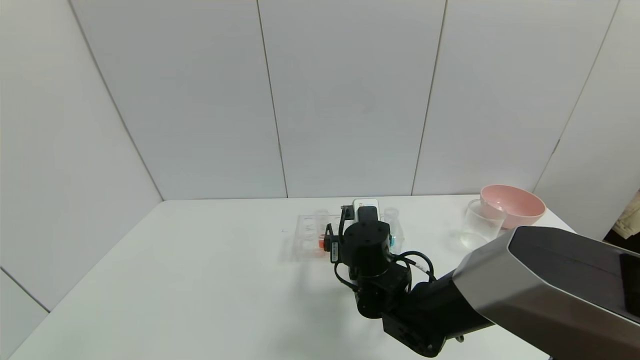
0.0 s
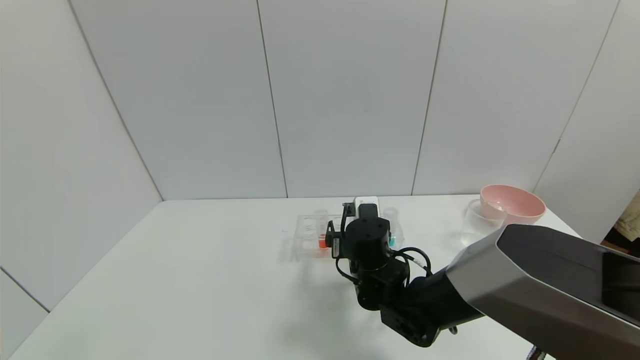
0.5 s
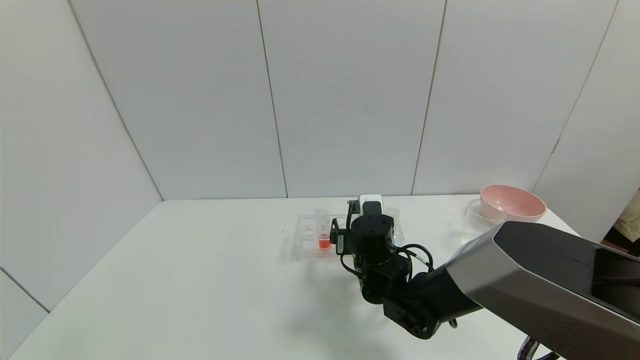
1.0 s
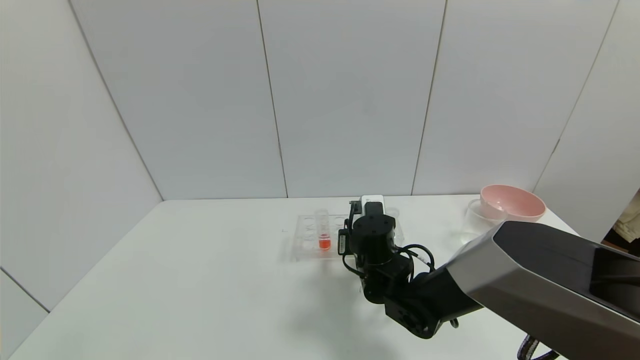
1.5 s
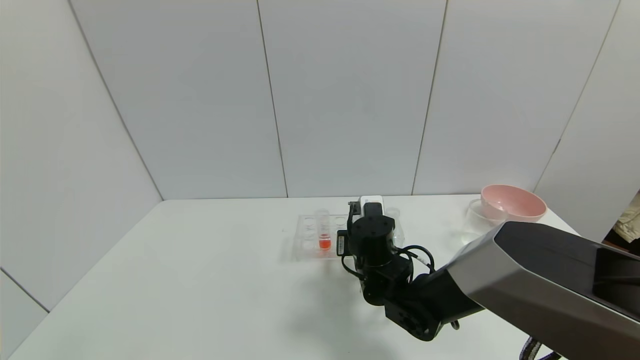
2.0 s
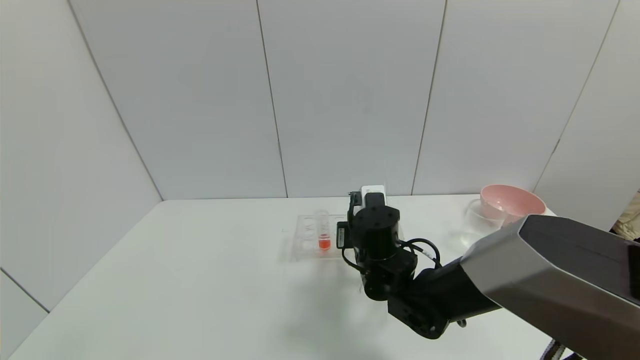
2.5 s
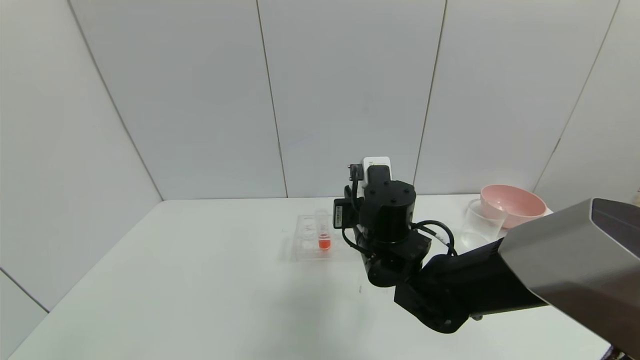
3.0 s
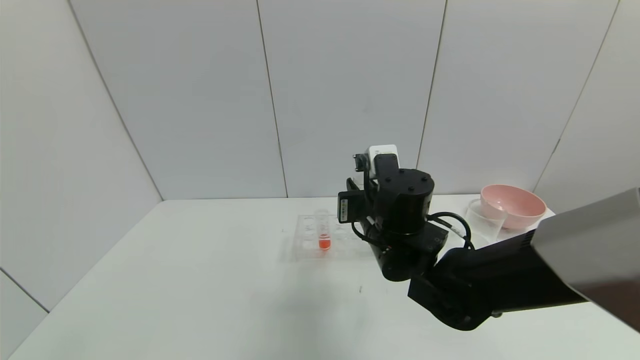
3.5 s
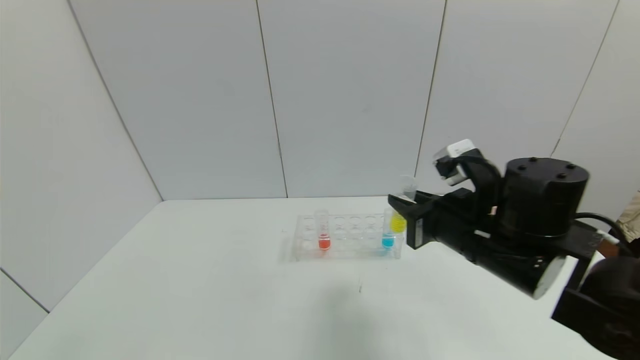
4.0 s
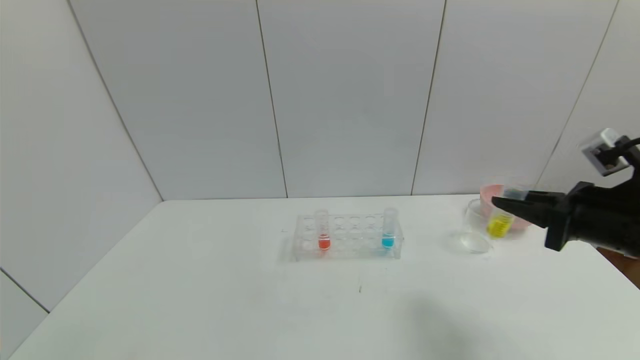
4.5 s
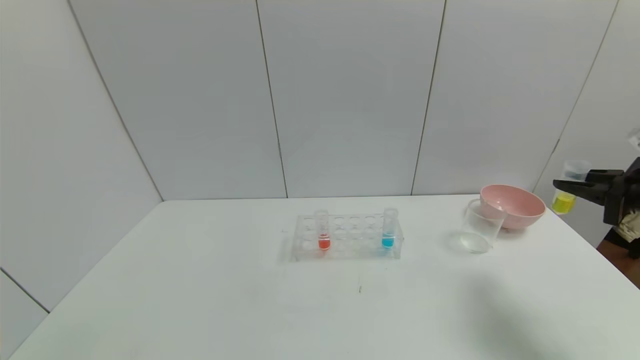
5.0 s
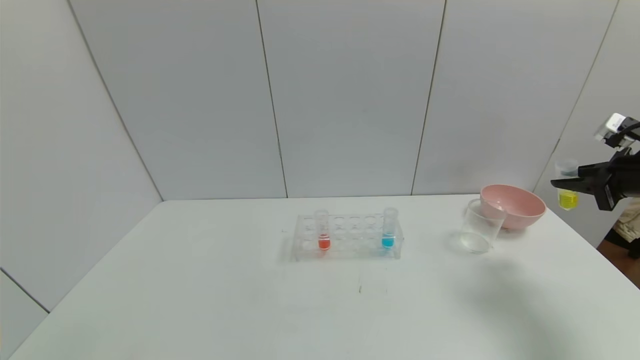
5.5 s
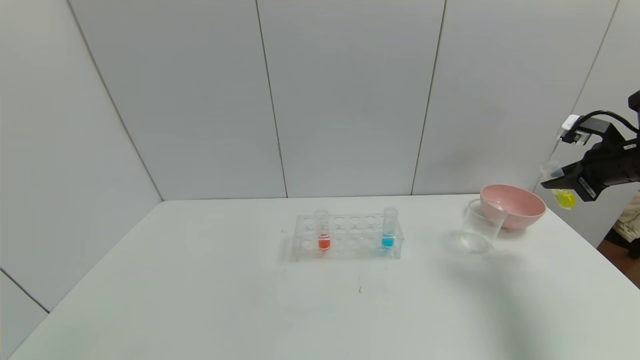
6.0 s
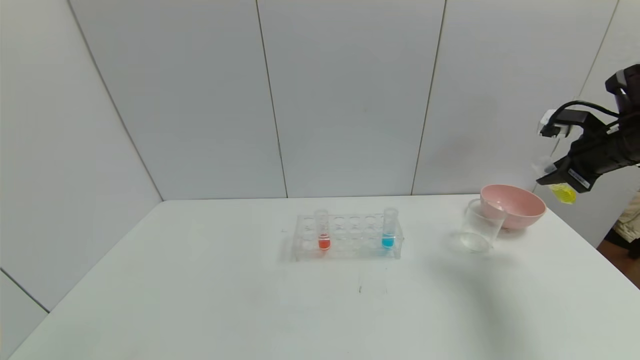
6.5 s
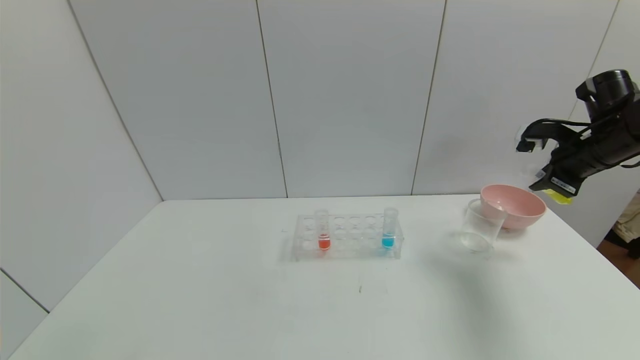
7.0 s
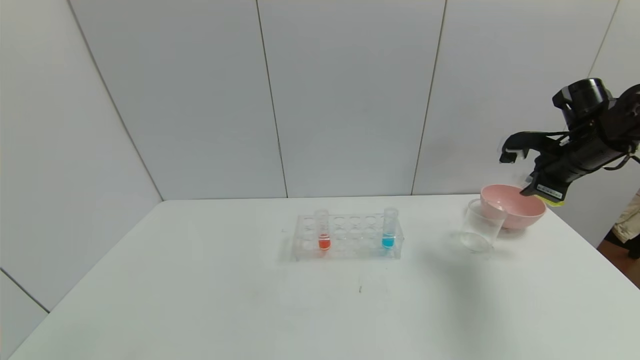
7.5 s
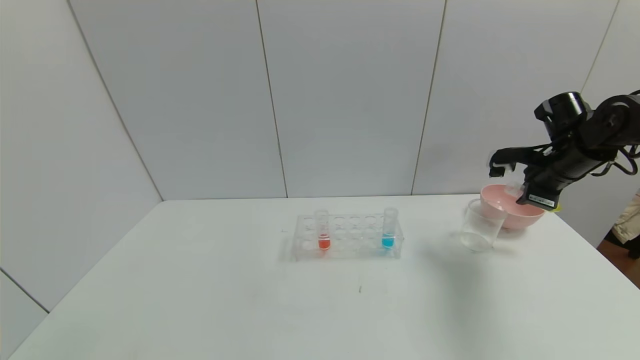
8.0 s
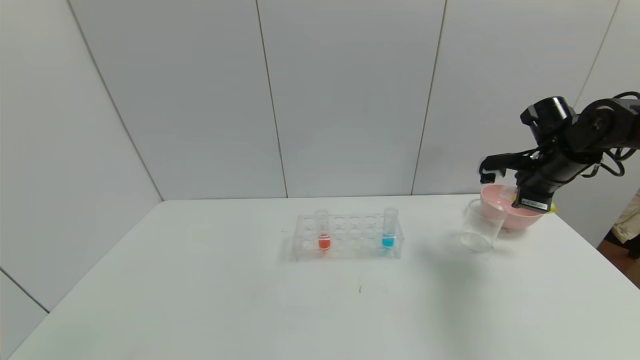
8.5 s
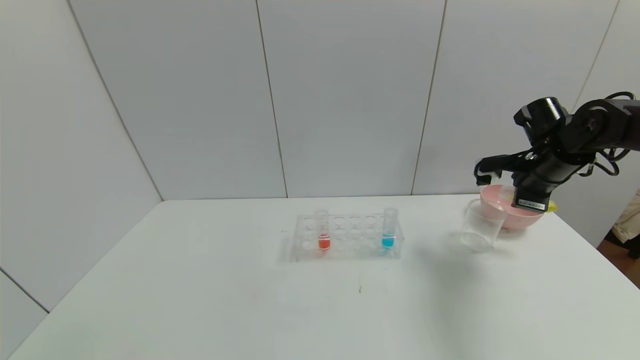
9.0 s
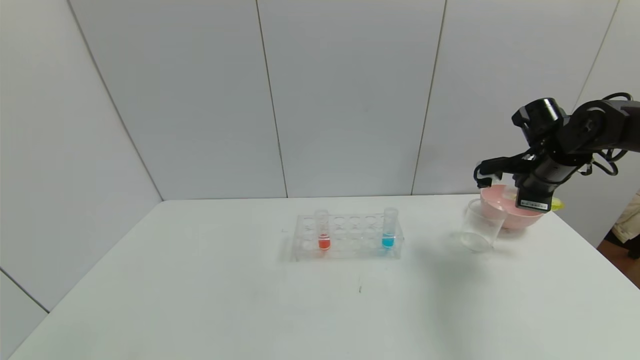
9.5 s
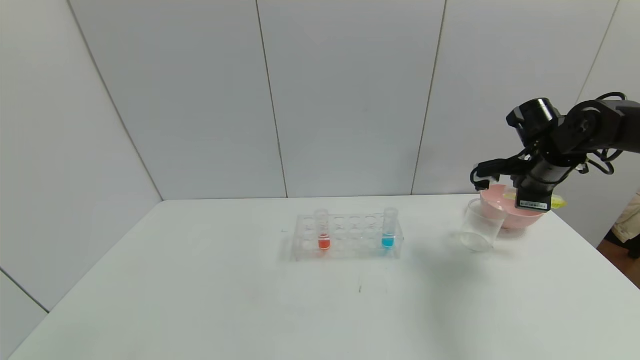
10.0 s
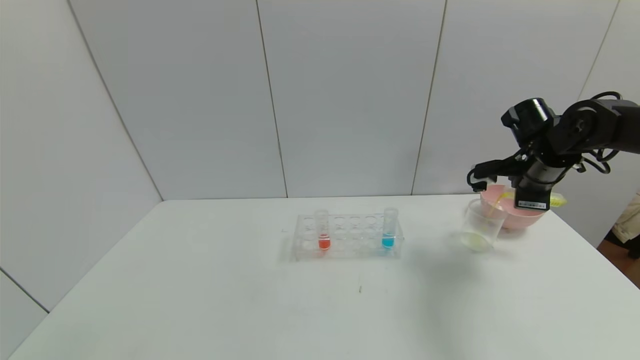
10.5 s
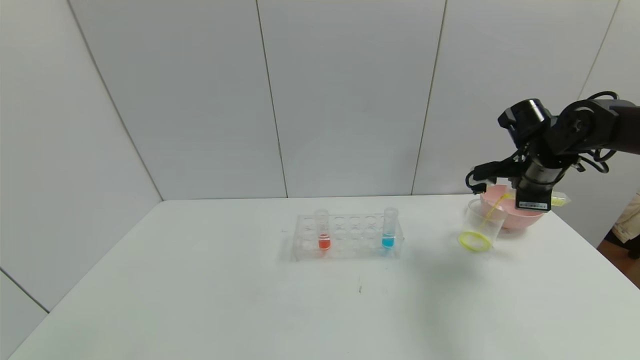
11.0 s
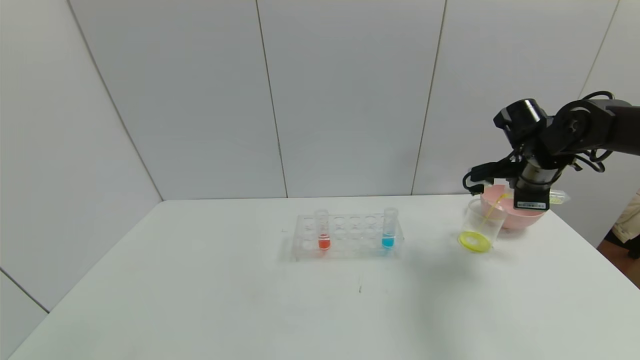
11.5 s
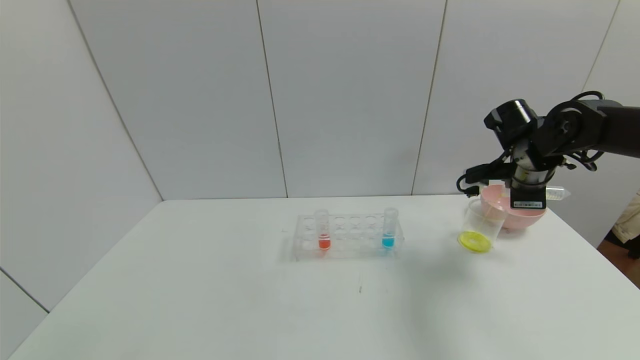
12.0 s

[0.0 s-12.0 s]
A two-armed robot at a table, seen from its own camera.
Task of the whole recording: pick up the test tube with yellow pigment and the test tube with blue pigment by grippers and pour them into the beaker.
0.0 to 2.0 s: The right gripper closes its fingers.
2.0 to 4.0 s: The right gripper is displaced upward, to the right and backward by roughly 20 cm.
4.0 to 6.0 s: The right gripper is displaced to the right by roughly 30 cm.
6.0 to 8.0 s: The right gripper goes some 10 cm to the left.
8.0 to 10.0 s: The grippers move only a little.
10.0 to 12.0 s: The grippers make only small movements.

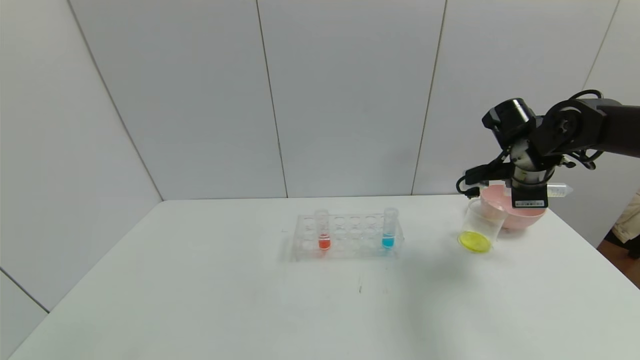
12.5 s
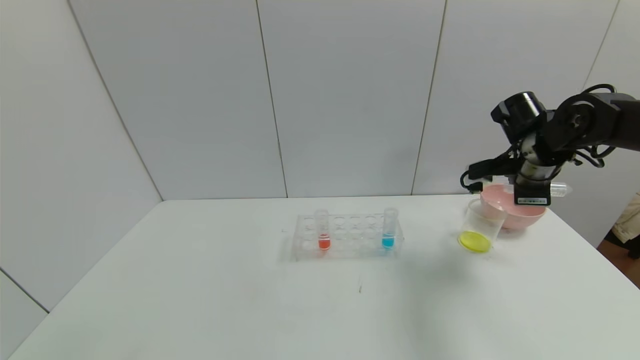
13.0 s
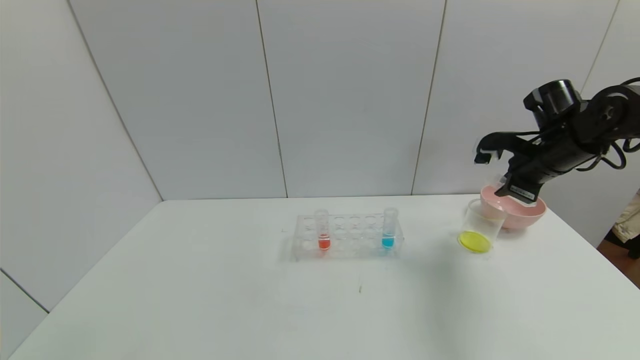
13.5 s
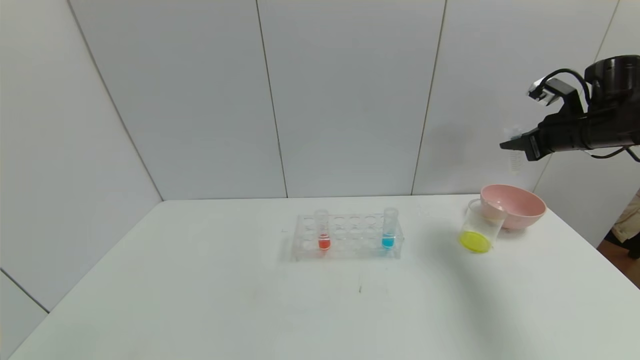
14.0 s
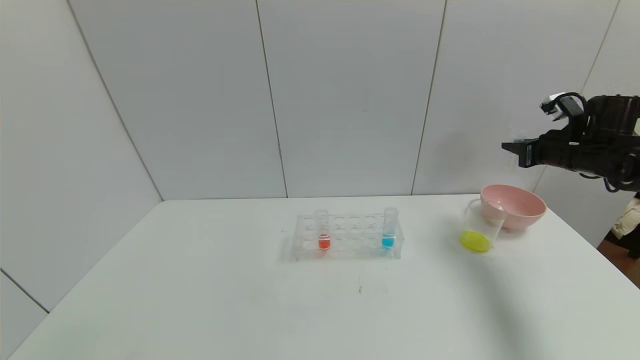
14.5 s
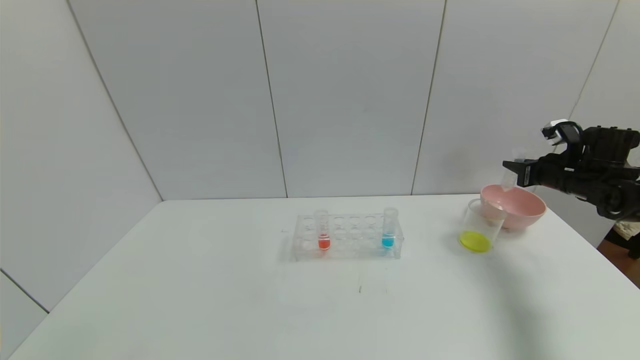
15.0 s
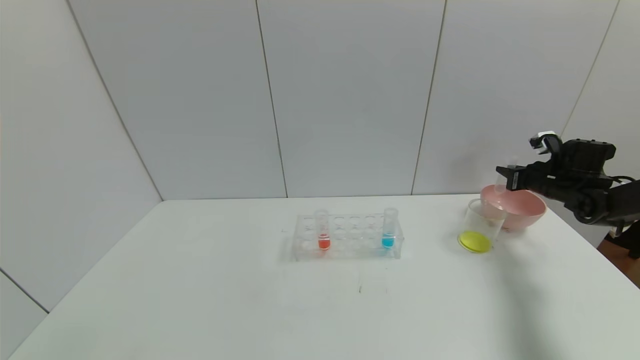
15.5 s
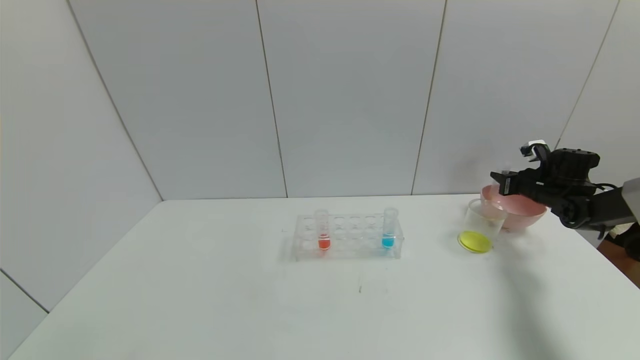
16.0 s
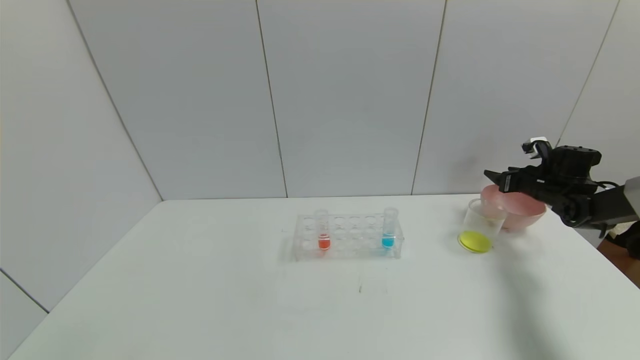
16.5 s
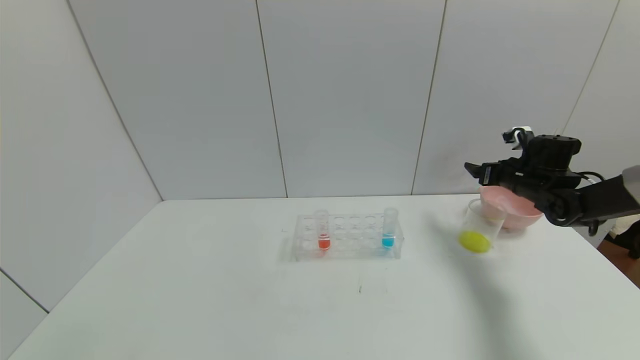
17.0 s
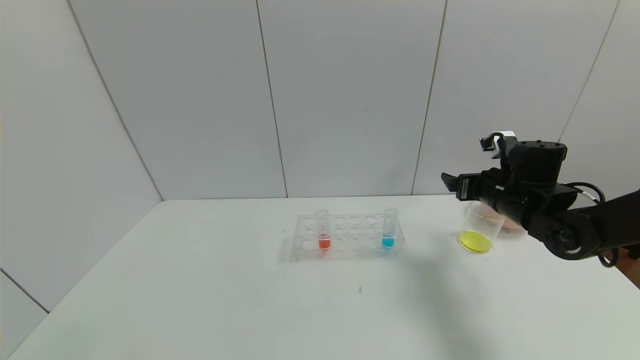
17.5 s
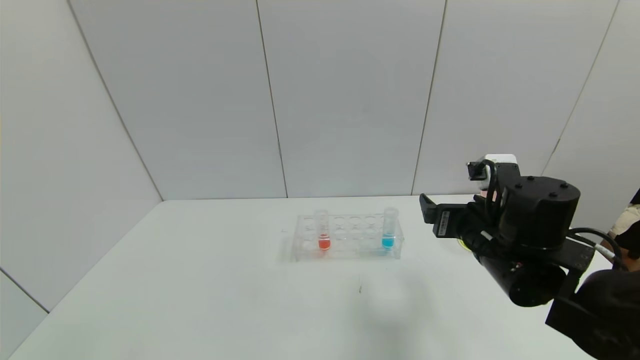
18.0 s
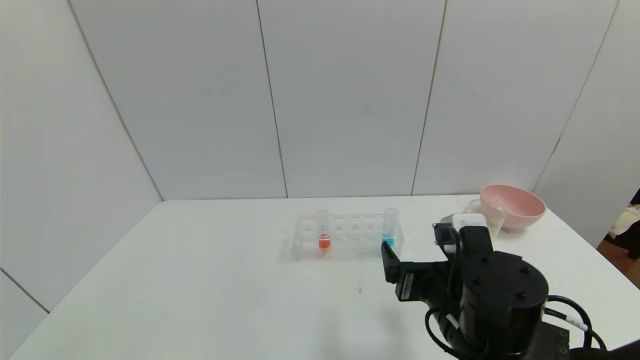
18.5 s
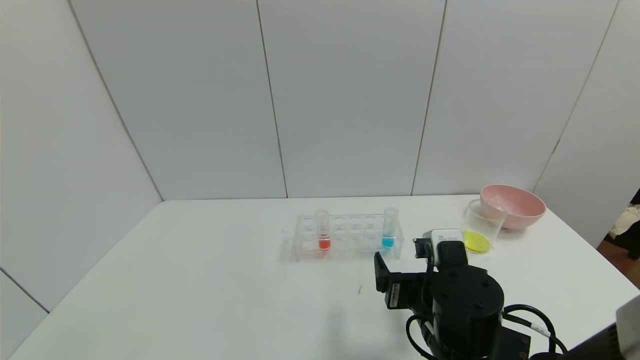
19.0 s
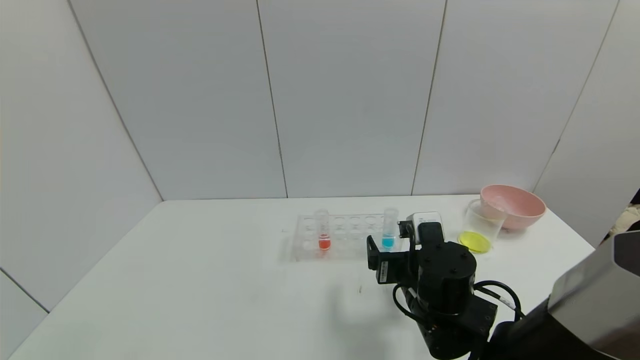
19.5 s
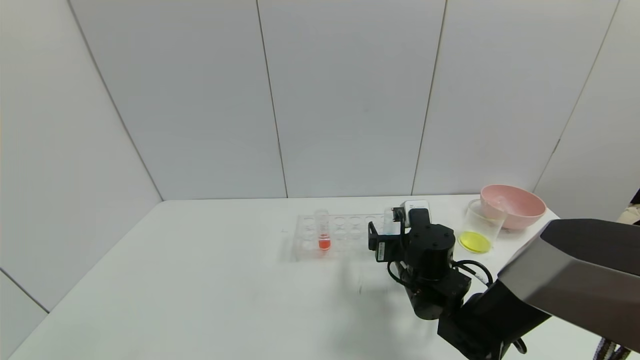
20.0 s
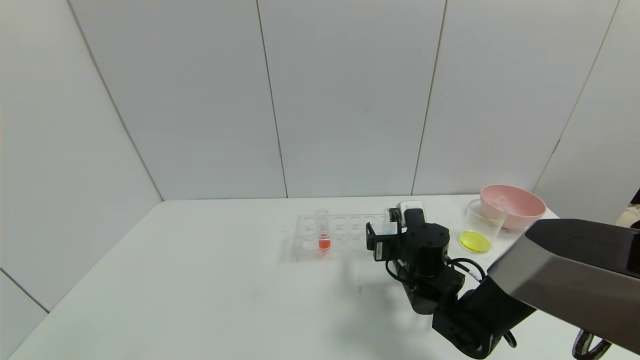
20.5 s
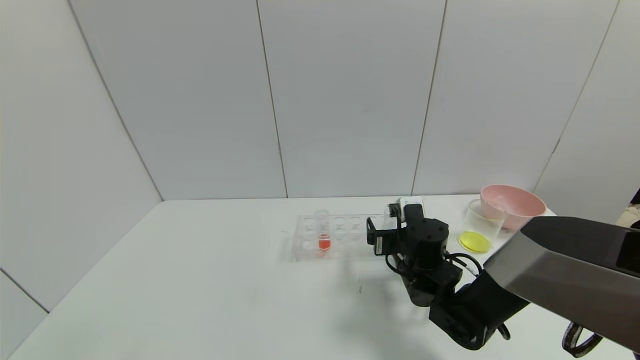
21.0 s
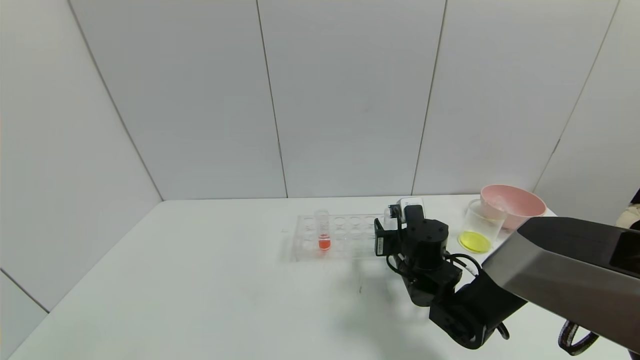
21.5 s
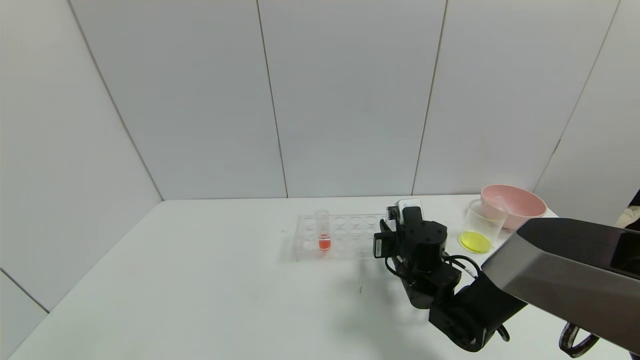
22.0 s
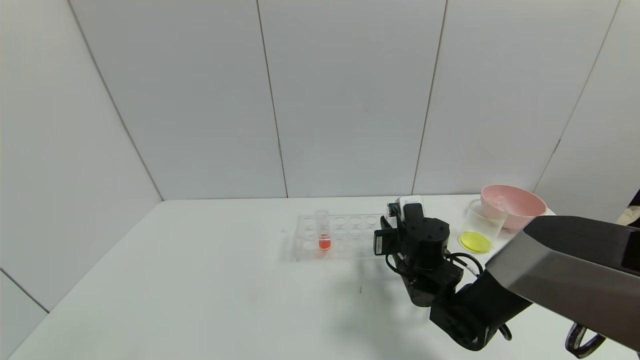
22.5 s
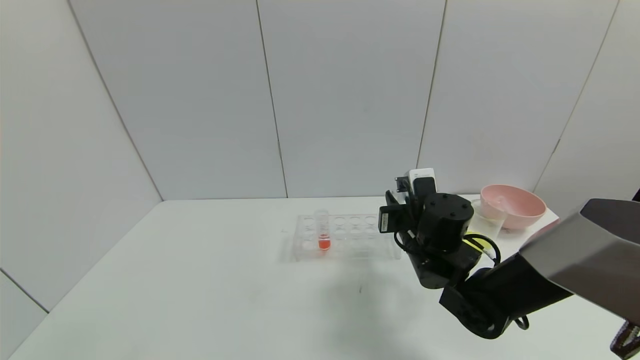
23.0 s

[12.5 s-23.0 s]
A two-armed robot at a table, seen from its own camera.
Task of the whole recording: pick up the test tube with yellow pigment and the test tube with blue pigment by grippers and pour them into the beaker.
Step, 13.0 to 16.5 s: Place the test tube into the bowl with the right gripper.
Step, 17.0 to 21.5 s: Grasp the blue reagent with the right gripper.
12.5 to 14.5 s: The right gripper moves to the right, some 15 cm.
14.5 to 16.5 s: The right gripper goes some 10 cm downward and forward, and opens up.
16.5 to 19.0 s: The right gripper travels to the left and backward by about 40 cm.
19.0 to 21.0 s: The right gripper heads forward, covering about 15 cm.
21.0 to 23.0 s: The right gripper heads upward, covering roughly 5 cm, and closes.
